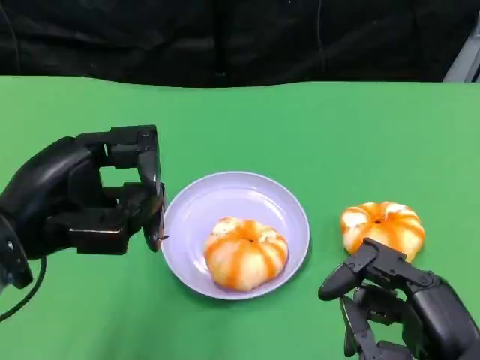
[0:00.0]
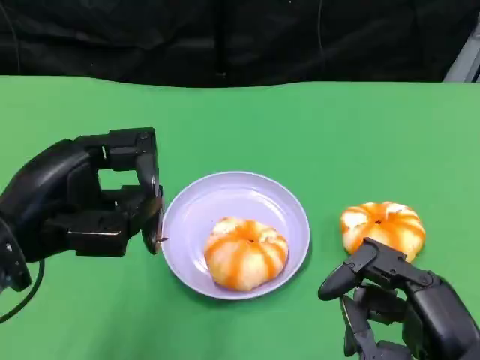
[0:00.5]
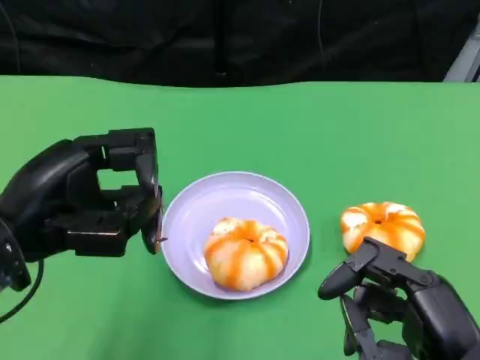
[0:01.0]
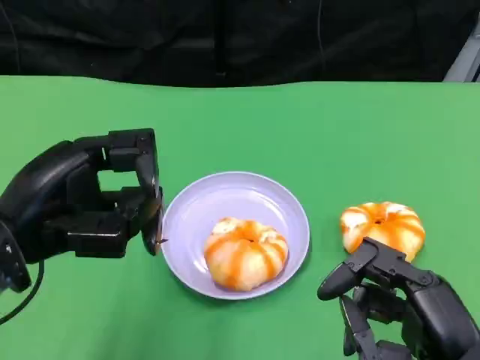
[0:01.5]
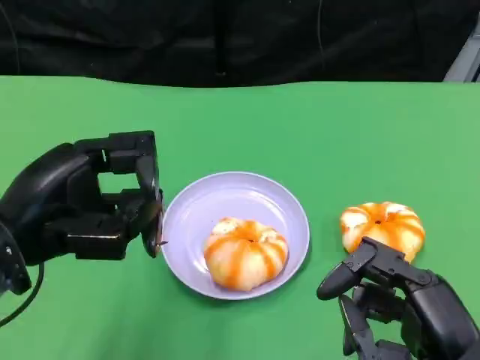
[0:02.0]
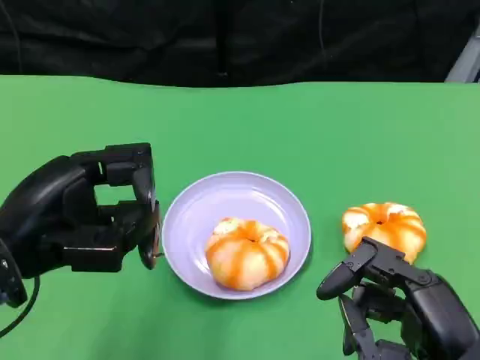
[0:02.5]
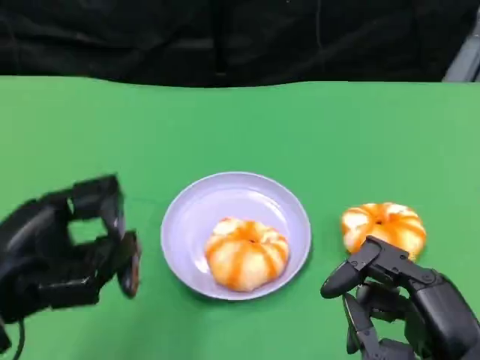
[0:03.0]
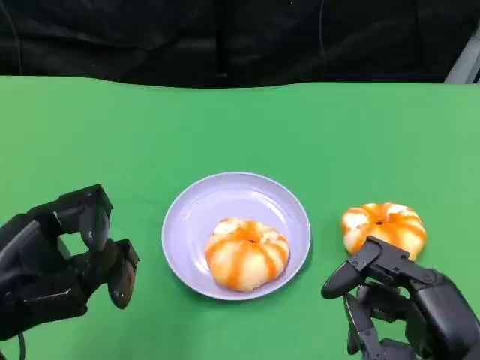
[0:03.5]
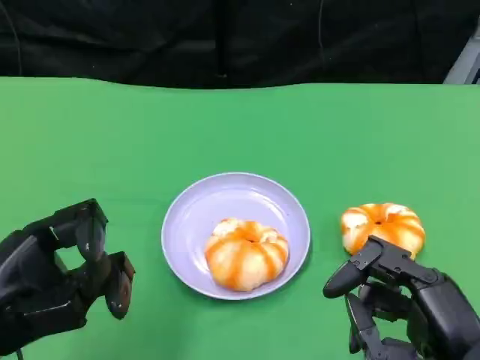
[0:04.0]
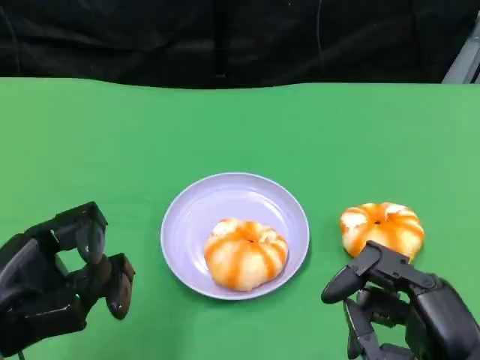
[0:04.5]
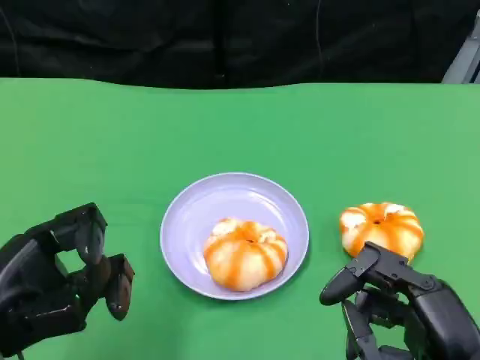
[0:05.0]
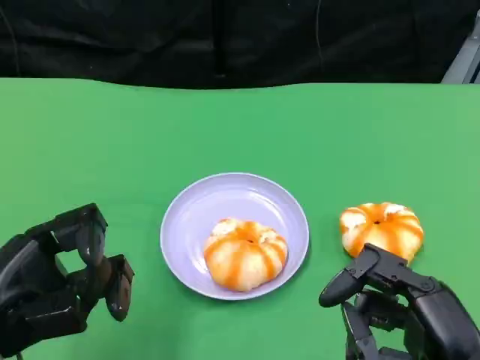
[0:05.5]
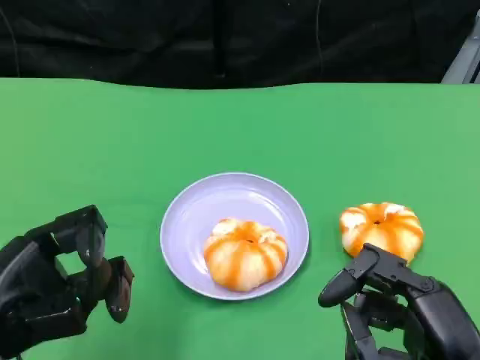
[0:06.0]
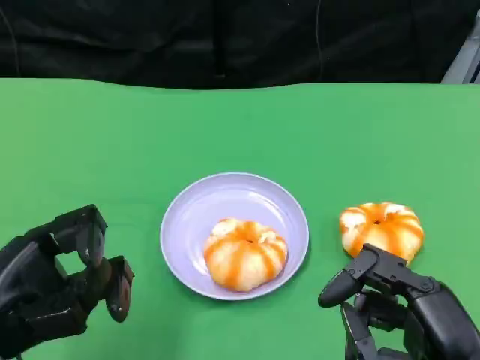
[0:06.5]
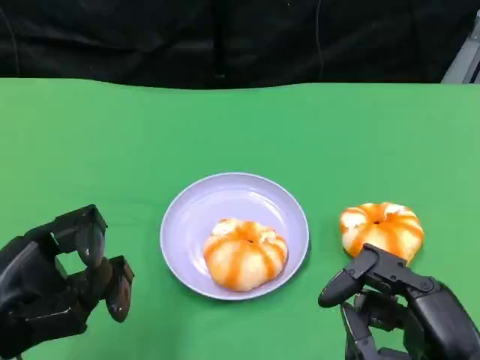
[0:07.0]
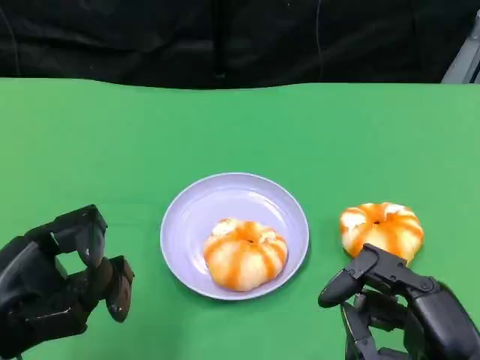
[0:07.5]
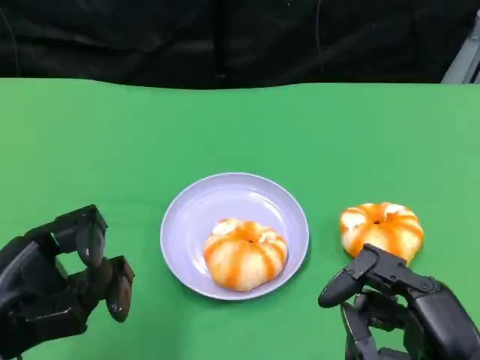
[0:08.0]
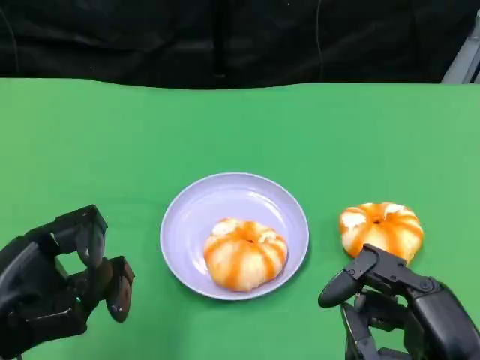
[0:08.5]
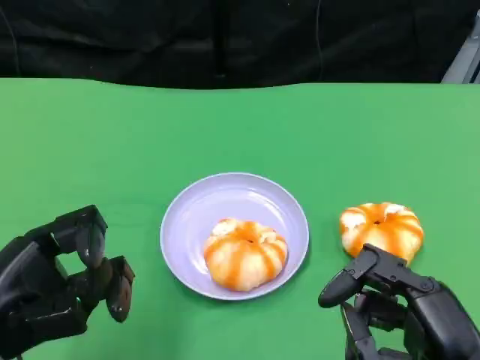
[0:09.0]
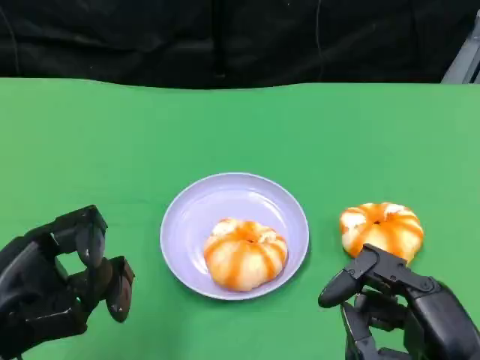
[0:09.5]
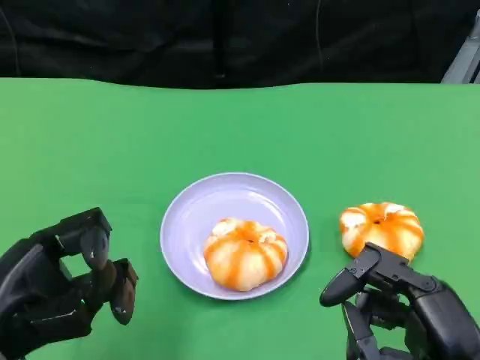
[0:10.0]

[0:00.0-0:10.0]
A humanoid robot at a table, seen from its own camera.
Task of the whole recording: Grasp the bread from the table and place it into the plate.
0:00.0 to 0:02.0: Neither hand changes place.
0:02.0 to 0:04.0: The left hand is displaced downward and backward by about 10 cm.
0:04.0 to 0:10.0: Neither hand changes place.

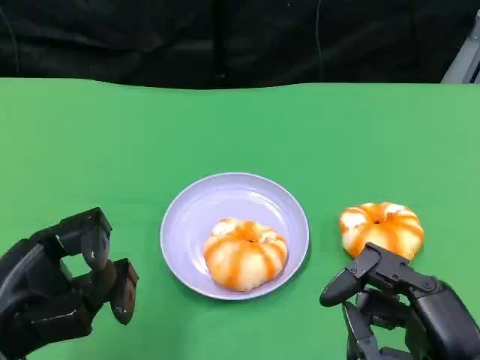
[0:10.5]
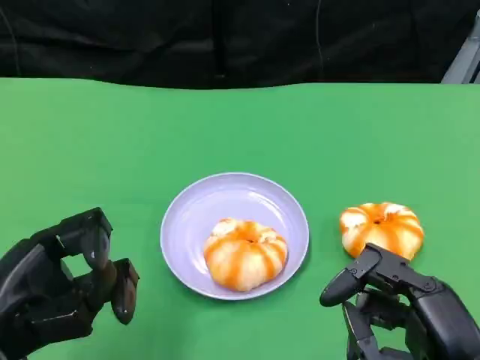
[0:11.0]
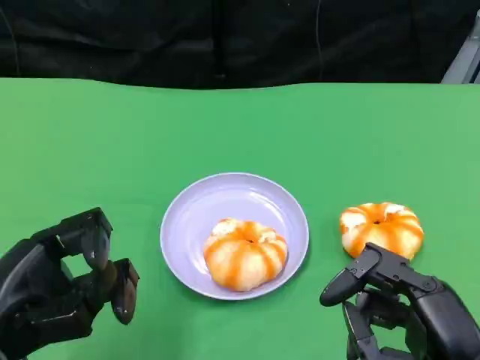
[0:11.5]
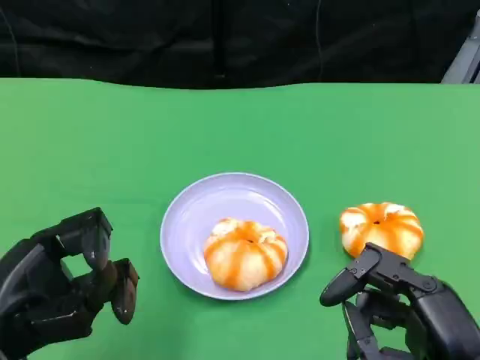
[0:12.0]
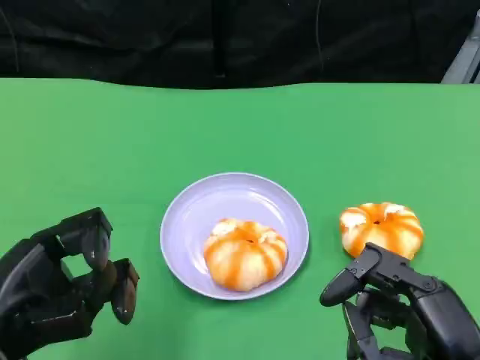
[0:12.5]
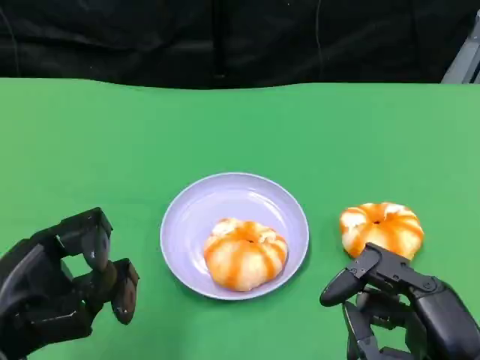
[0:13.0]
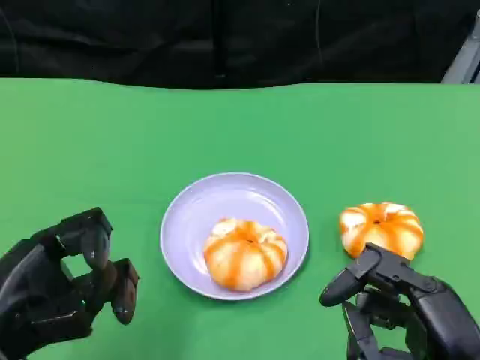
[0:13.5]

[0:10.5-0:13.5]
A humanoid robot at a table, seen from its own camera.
Task of the whole recording: Grasp the bread from the table and place it into the plate.
0:10.5 to 0:13.5: Both hands stay put.

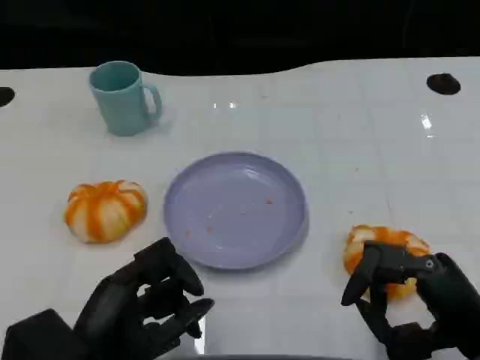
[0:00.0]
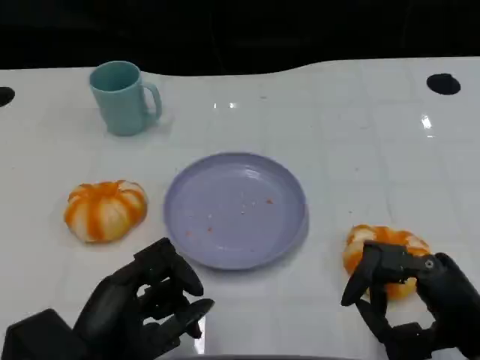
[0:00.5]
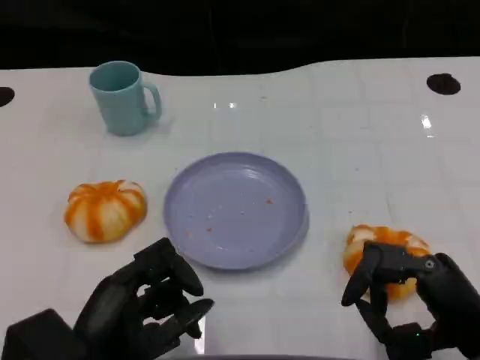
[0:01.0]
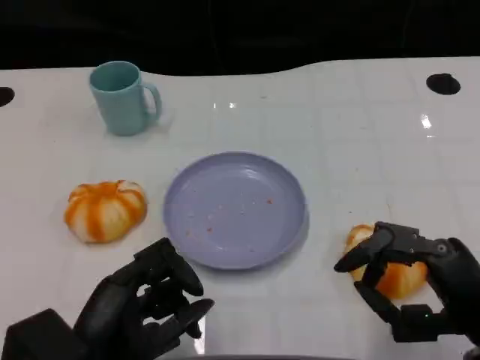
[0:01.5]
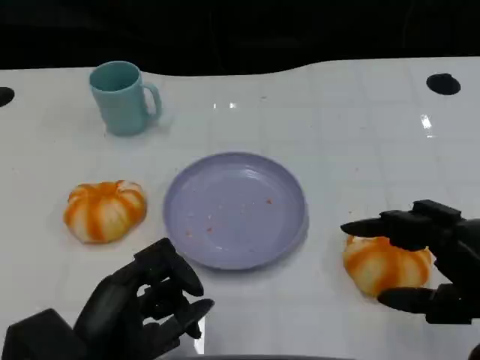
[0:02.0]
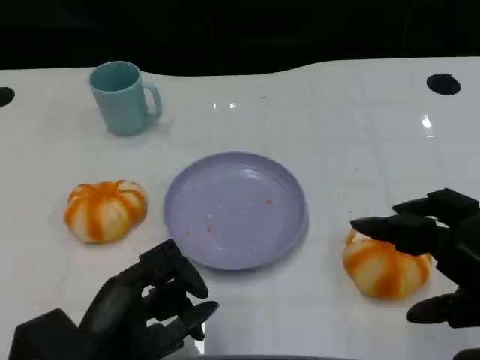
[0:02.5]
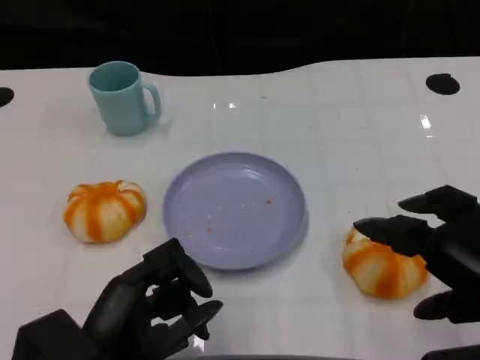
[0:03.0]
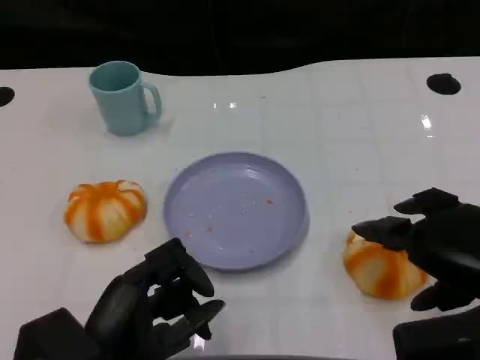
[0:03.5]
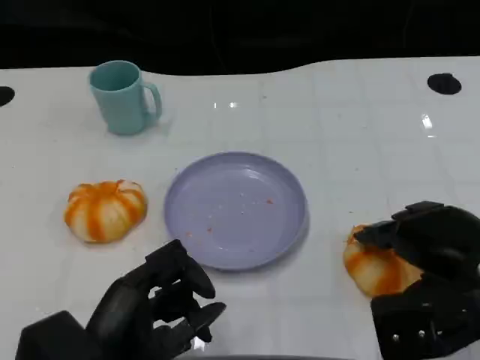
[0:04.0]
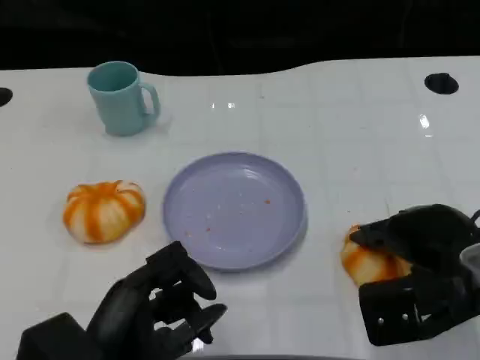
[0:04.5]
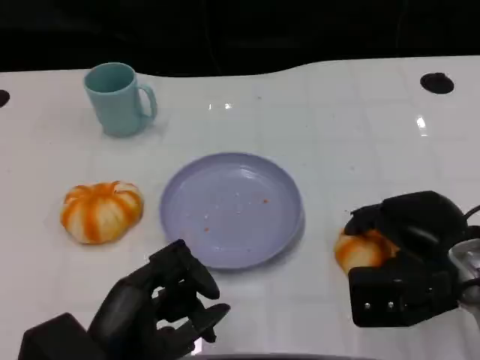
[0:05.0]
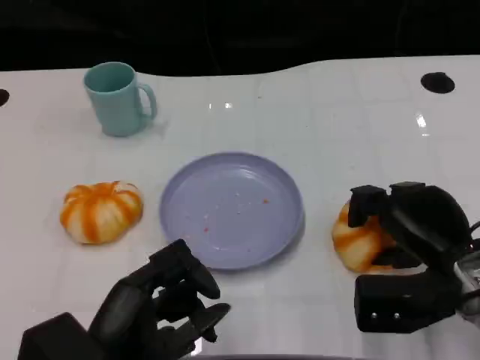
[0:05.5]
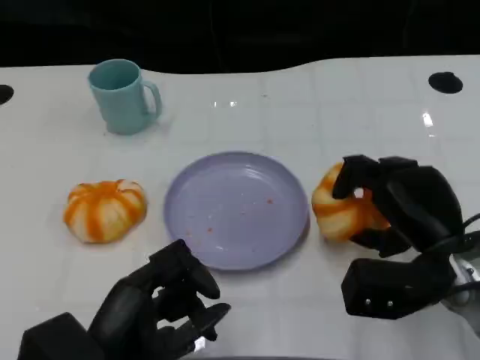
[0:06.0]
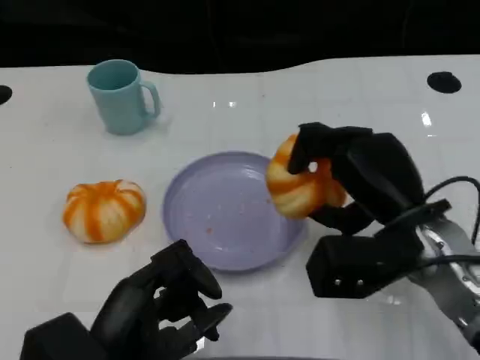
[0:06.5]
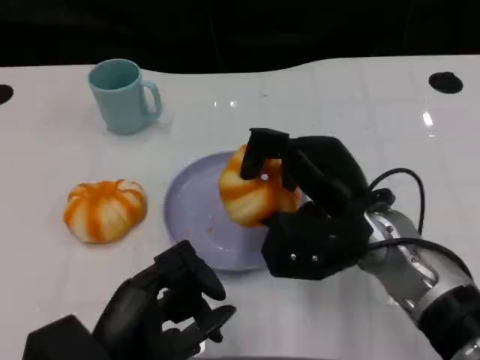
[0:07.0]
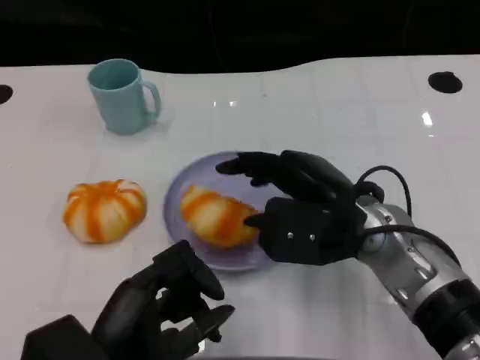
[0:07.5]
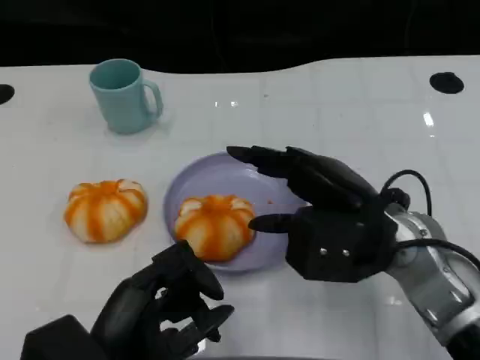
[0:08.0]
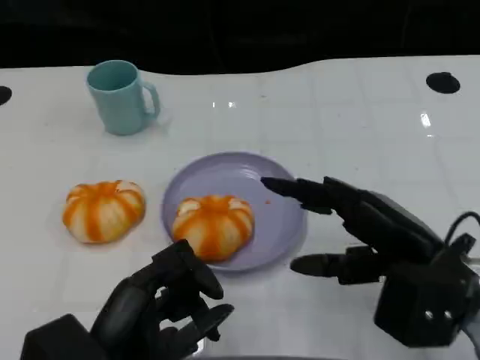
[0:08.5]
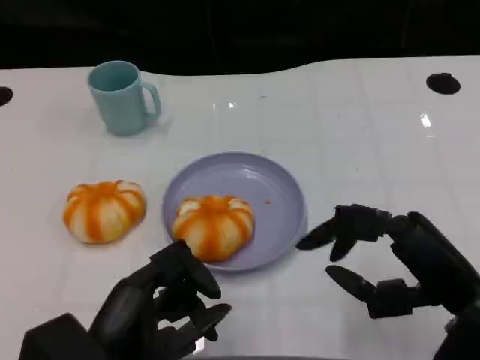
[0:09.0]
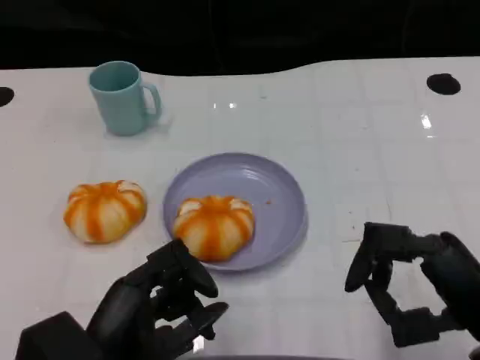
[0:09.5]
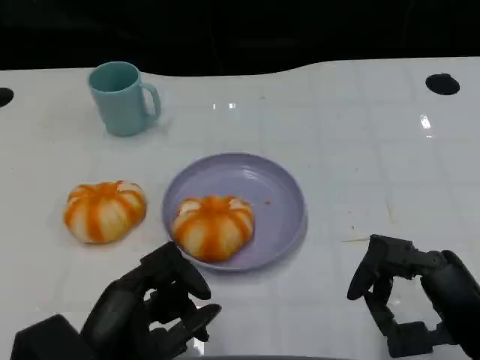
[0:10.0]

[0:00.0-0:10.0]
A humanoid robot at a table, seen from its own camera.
Task of the whole recording: Grasp the bread from the table and place it into the plate.
0:00.0 to 0:02.0: The right hand is displaced upward by roughly 5 cm.
0:02.0 to 0:04.0: The right hand travels forward by some 5 cm.
0:04.0 to 0:06.0: The right hand shifts by about 5 cm.
0:06.0 to 0:08.0: The right hand heads to the left and upward, covering approximately 10 cm.
0:08.0 to 0:10.0: The right hand shifts approximately 15 cm backward, to the right and downward.

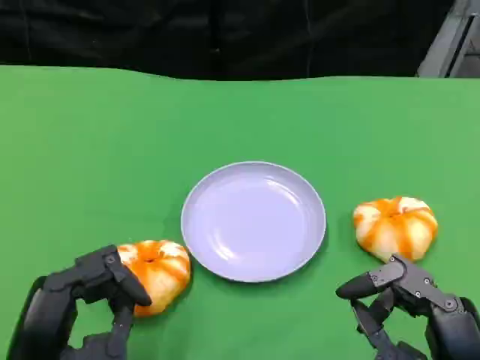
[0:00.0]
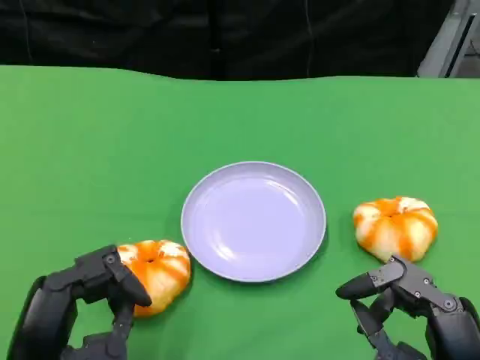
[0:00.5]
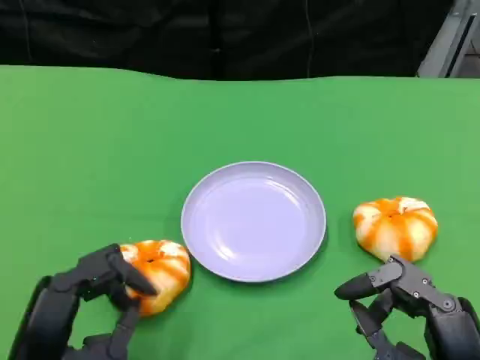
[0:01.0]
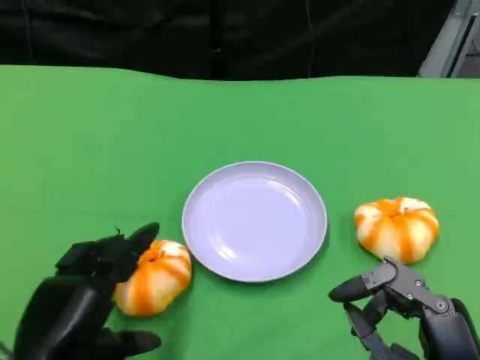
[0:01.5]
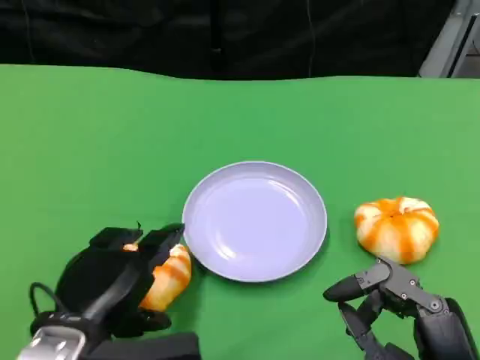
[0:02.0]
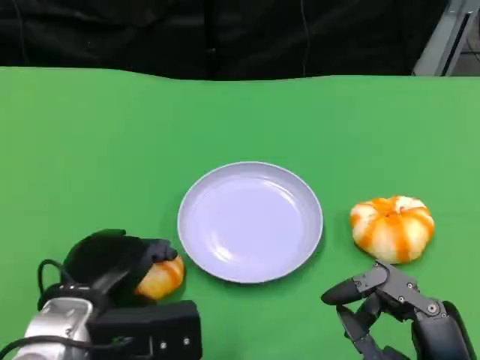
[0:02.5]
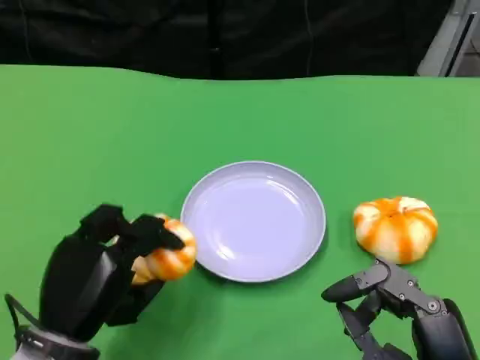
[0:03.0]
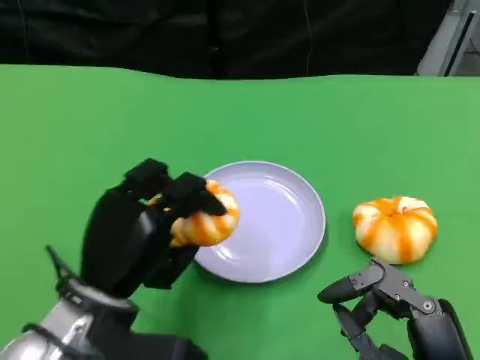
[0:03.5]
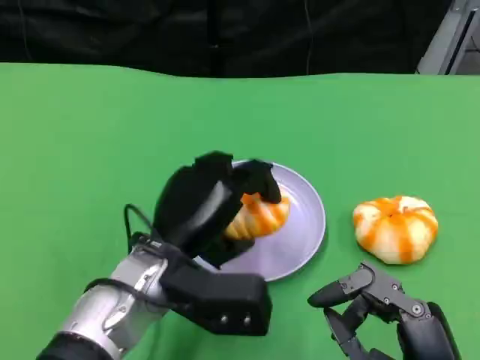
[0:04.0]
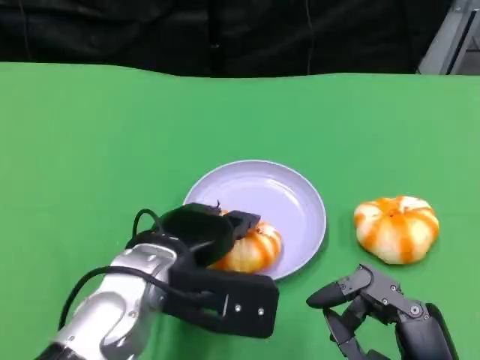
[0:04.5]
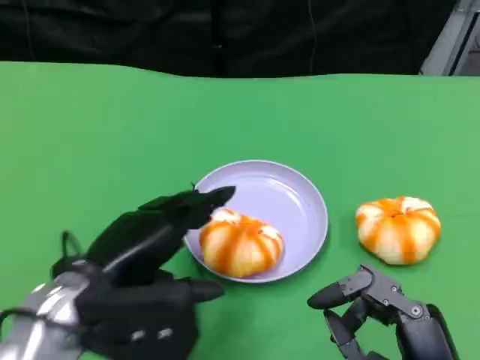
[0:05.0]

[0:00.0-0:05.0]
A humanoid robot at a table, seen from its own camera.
Task of the whole recording: Grasp the bread from the table and place it into the plate.
0:00.0 to 0:02.5: The left hand heads forward, covering about 5 cm.
0:02.5 to 0:05.0: The left hand moves upward, about 5 cm, and reaches some 10 cm to the right, then returns.
